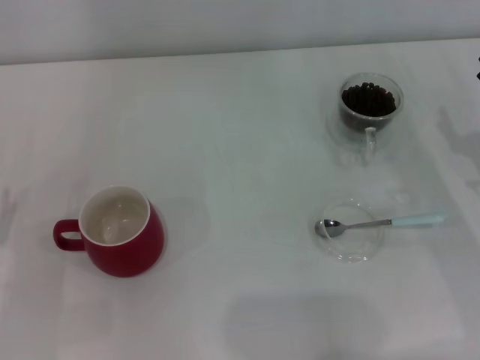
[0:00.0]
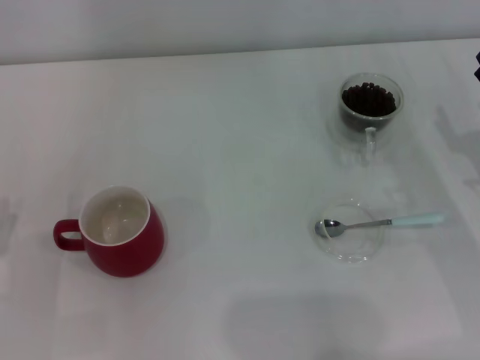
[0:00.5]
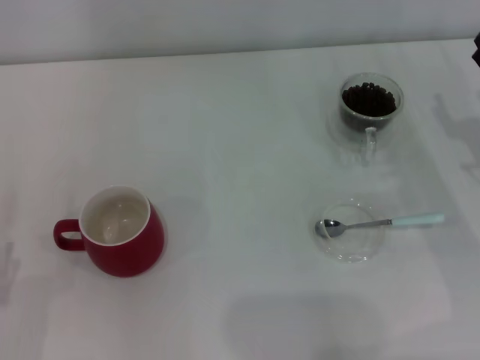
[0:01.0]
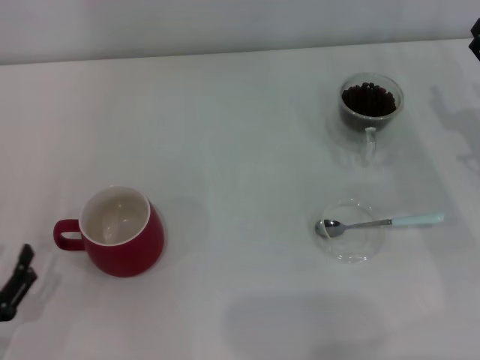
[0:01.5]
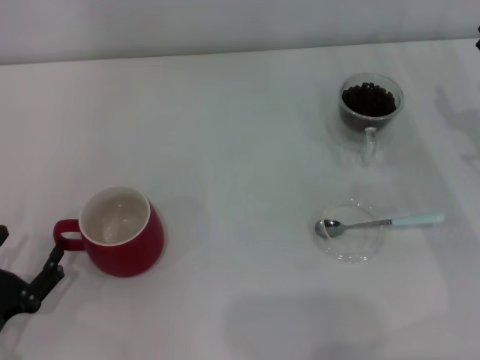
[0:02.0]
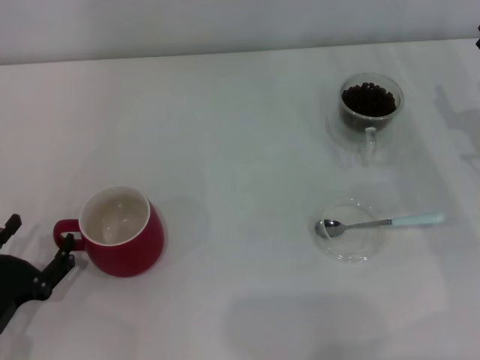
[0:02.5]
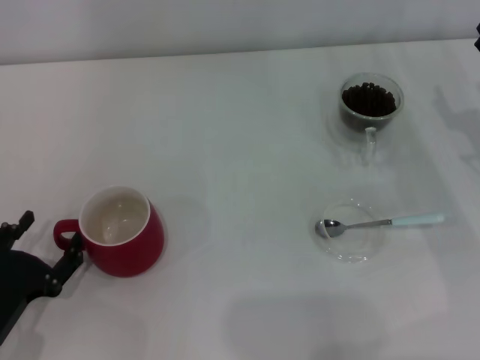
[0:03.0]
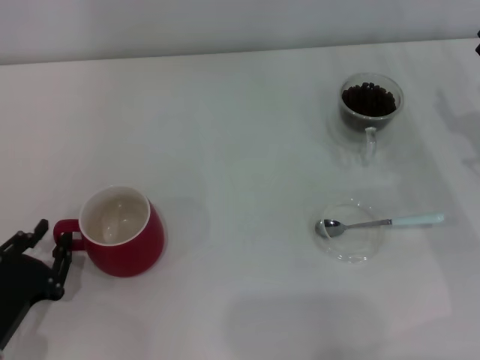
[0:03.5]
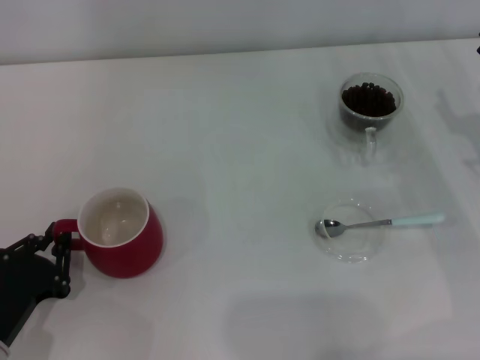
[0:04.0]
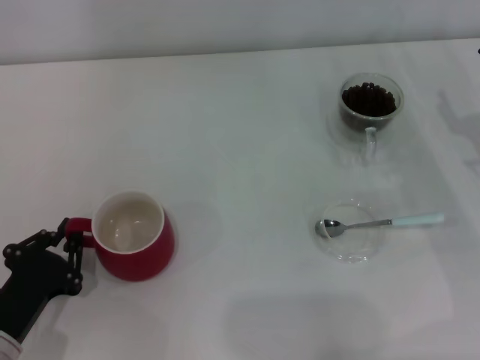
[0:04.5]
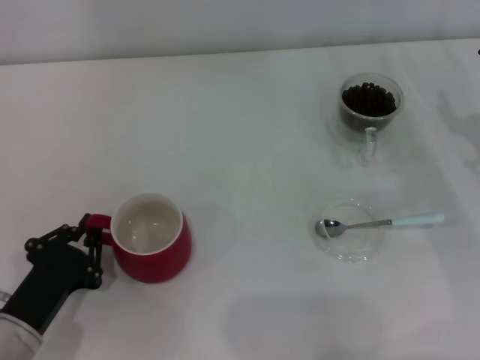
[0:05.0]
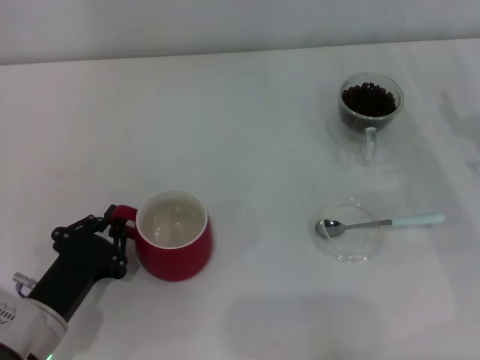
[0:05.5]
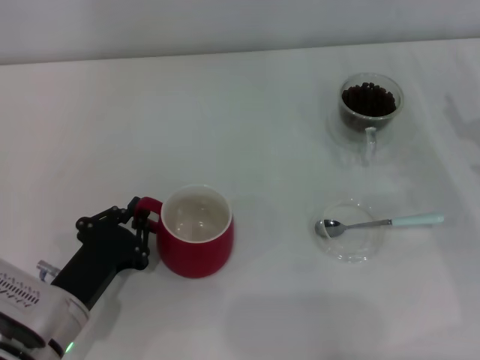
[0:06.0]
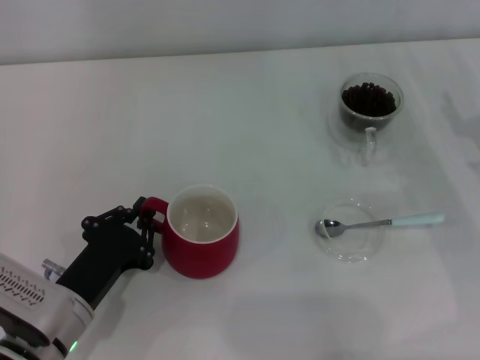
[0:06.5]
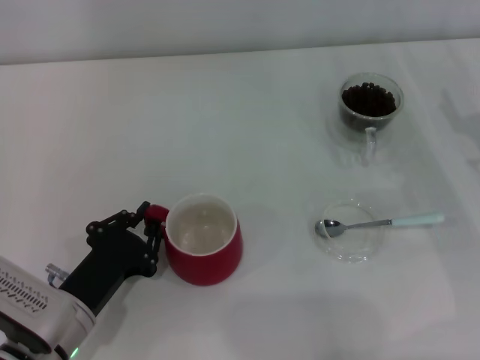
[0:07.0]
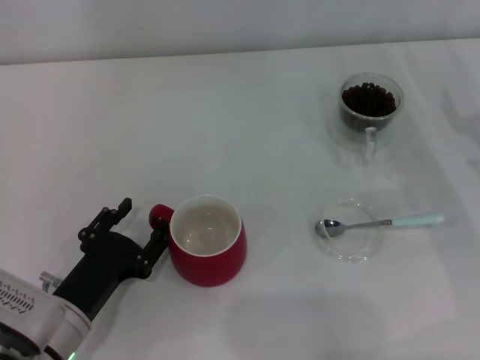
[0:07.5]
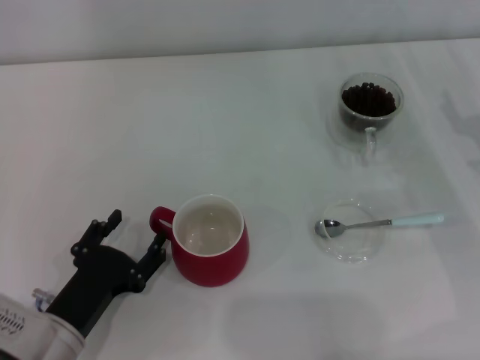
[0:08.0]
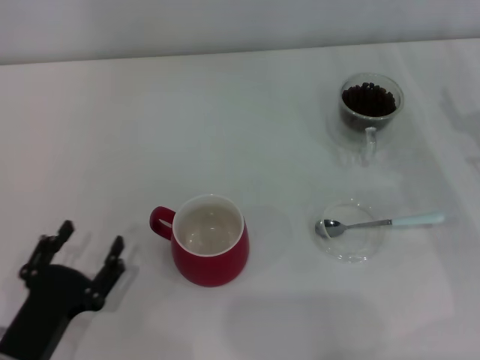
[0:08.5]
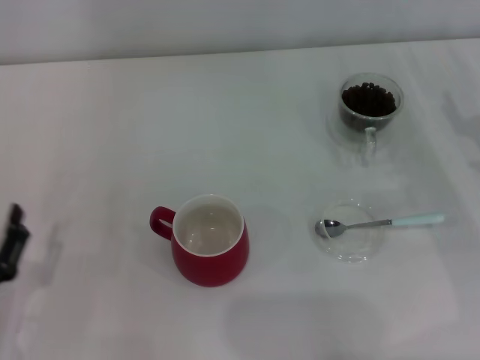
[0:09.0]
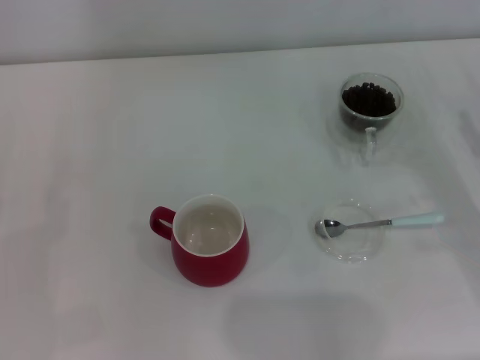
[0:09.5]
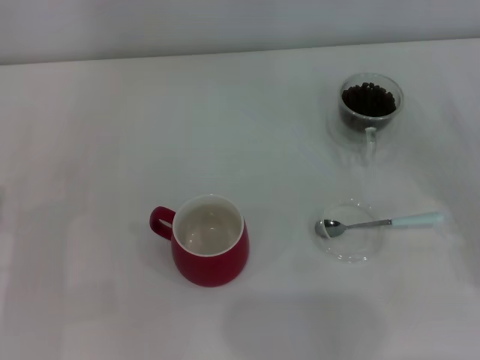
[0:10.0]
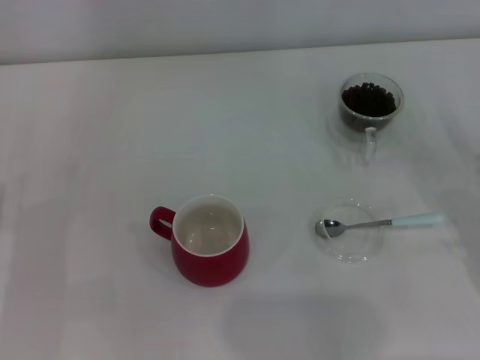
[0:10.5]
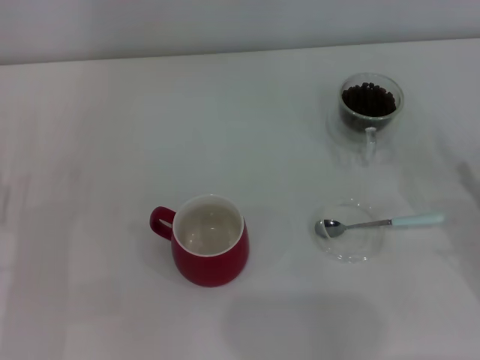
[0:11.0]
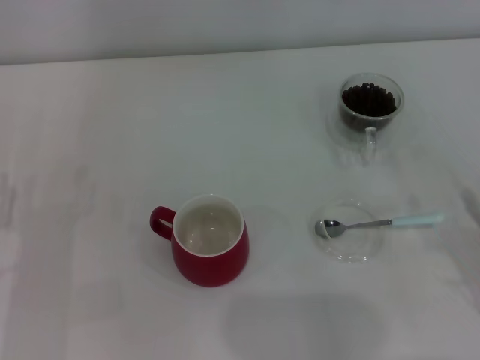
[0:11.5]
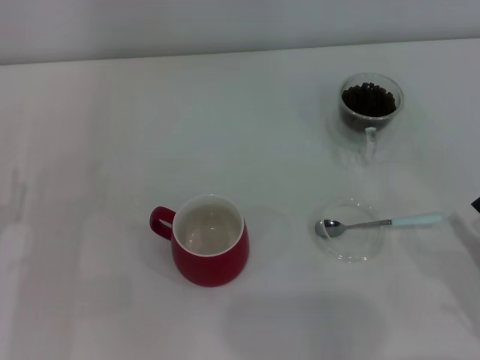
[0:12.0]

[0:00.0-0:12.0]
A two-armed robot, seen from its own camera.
Task of the whole recording: Use a blue spoon to take out the coffee beans from the glass and pour them into the red cup.
Step, 0:00.0 to 0:08.0: Move the cup to the center of view with the left gripper.
0:00.0 to 0:02.0: The left gripper ends up about 5 cm from where it was.
0:02.0 to 0:04.0: The left gripper closes.
0:04.0 to 0:06.0: The left gripper is displaced to the right by some 5 cm.
0:06.0 to 0:08.0: The left gripper opens up.
0:08.0 to 0:10.0: The left gripper goes some 10 cm to the left.

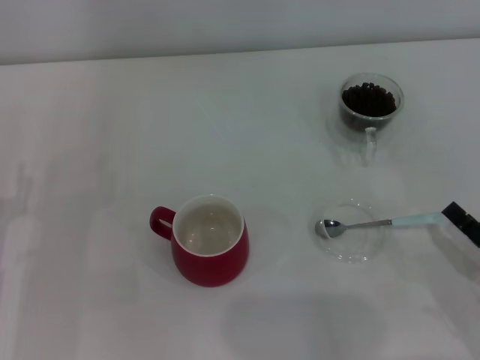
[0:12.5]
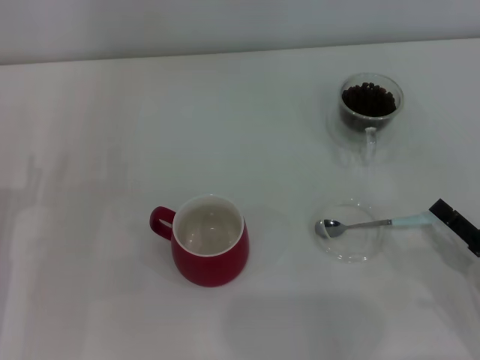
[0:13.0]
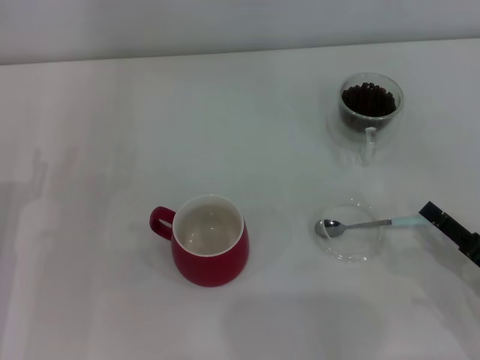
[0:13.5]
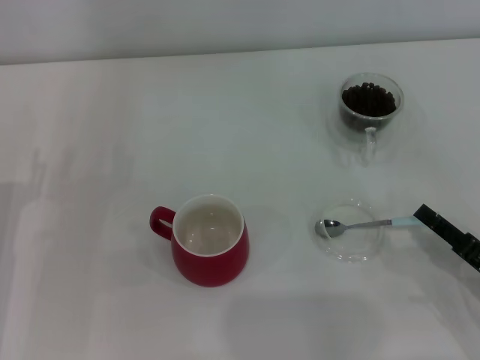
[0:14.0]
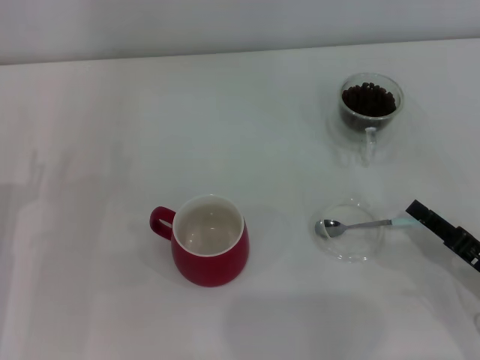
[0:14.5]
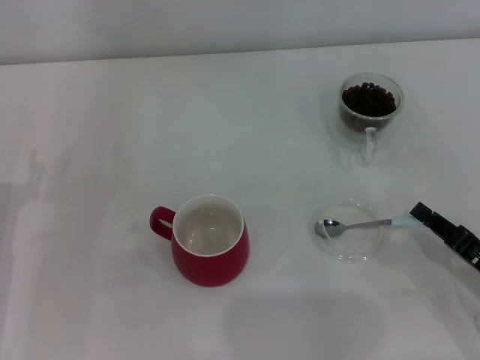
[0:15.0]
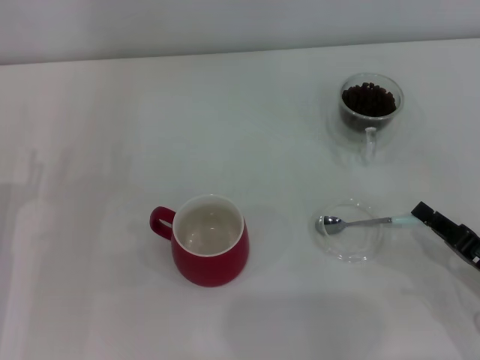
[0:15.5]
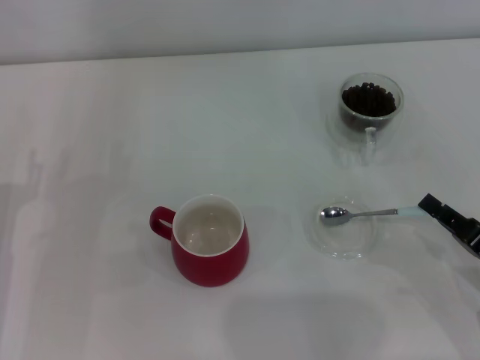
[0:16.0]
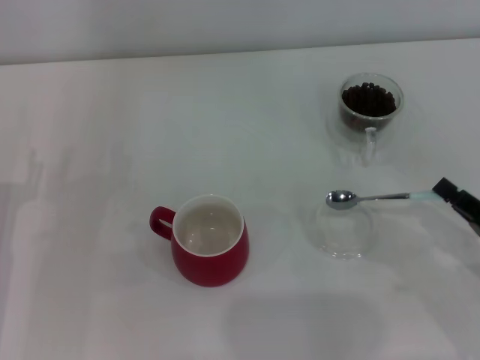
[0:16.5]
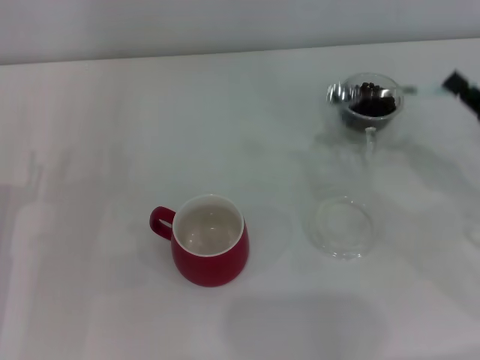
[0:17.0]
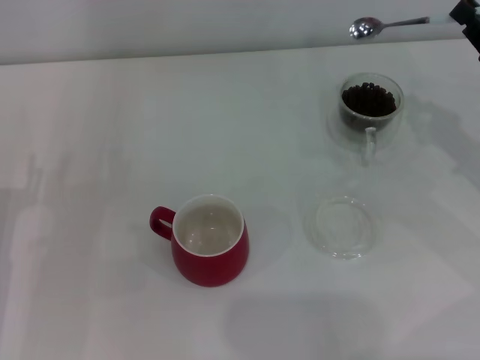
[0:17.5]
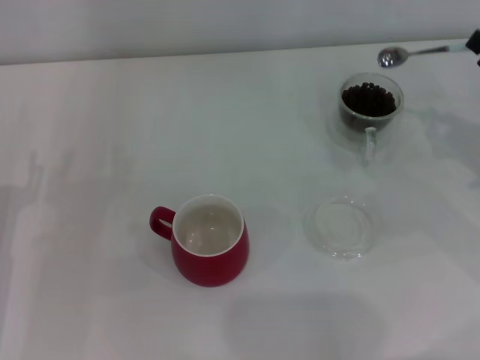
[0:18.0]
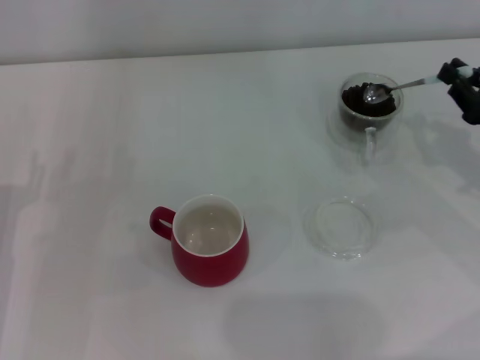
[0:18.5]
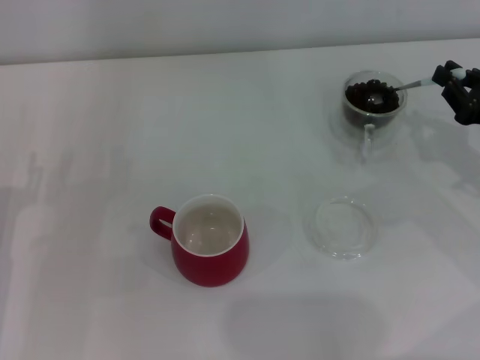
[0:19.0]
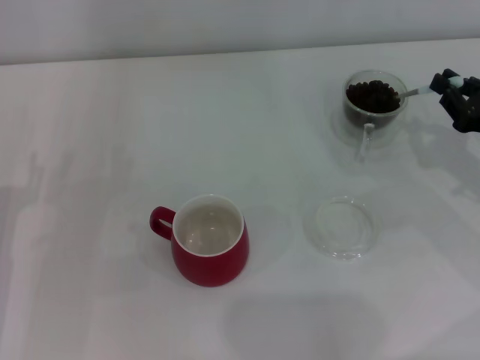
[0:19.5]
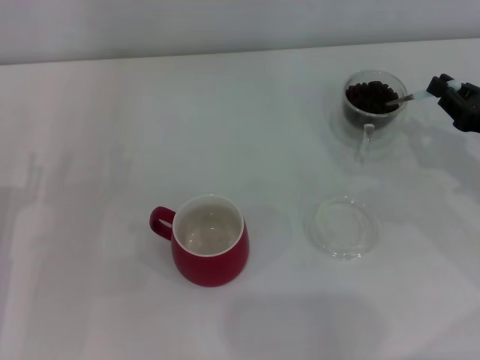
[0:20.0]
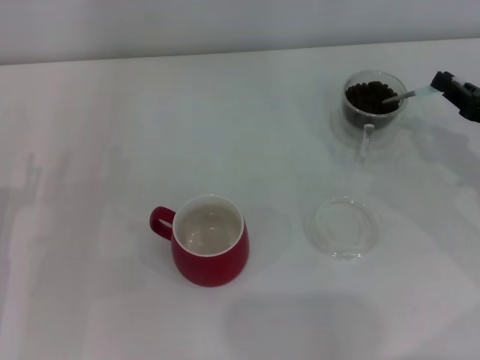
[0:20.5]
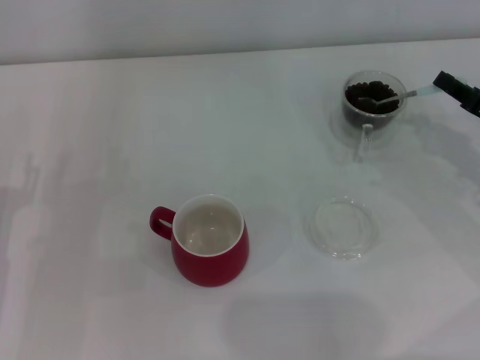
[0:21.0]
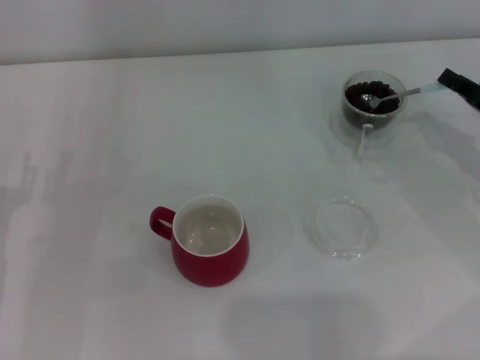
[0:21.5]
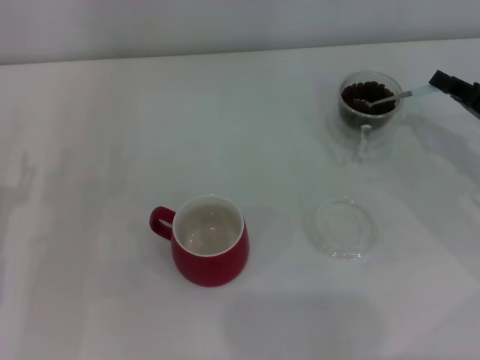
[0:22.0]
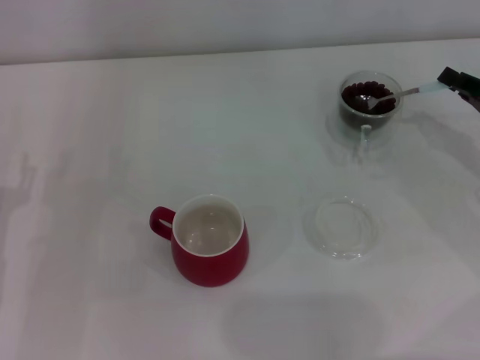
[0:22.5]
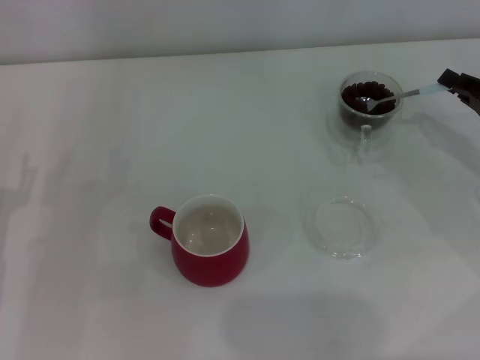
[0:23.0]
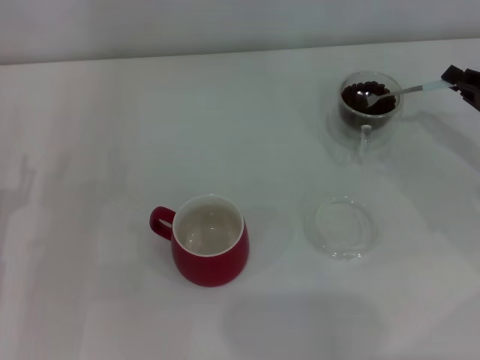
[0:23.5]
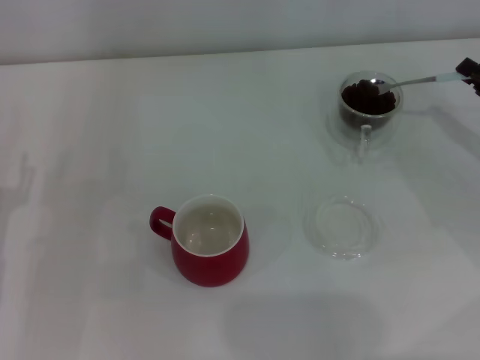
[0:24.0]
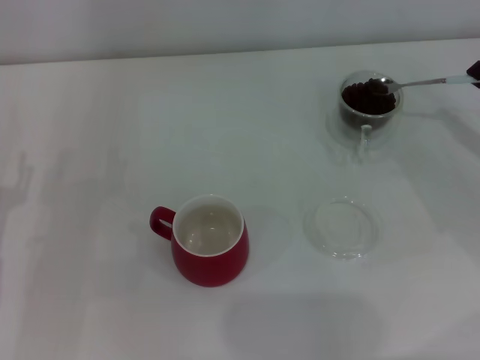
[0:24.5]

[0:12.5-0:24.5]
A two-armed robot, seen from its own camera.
Task of the whole recording: Use a blue spoon to take out the coffee beans from the glass and pour them into the red cup.
Step, 0:12.5 to 0:16.5: Pick up the spoon with the right gripper.
0:12.5 to 0:14.5: The right gripper closes.
0:14.5 to 0:16.5: The right gripper closes.
0:16.5 to 0:18.5: The right gripper moves forward and upward, about 15 cm.
0:20.5 to 0:22.5: There are only small adjustments of the grippers.
0:22.5 to 0:24.5: There are only small adjustments of the grippers.

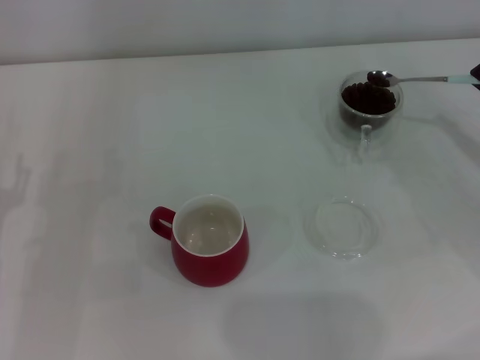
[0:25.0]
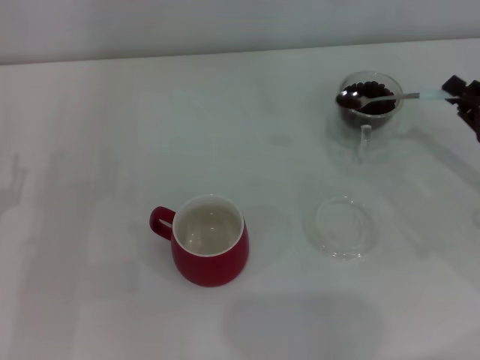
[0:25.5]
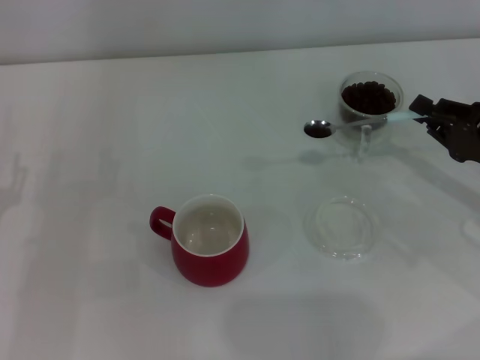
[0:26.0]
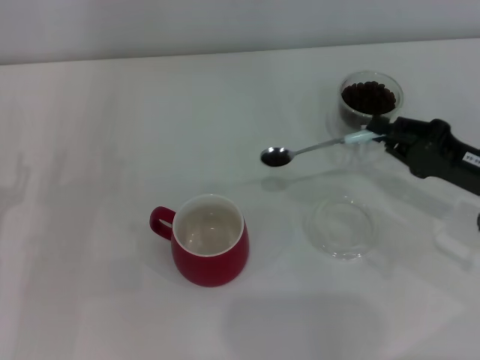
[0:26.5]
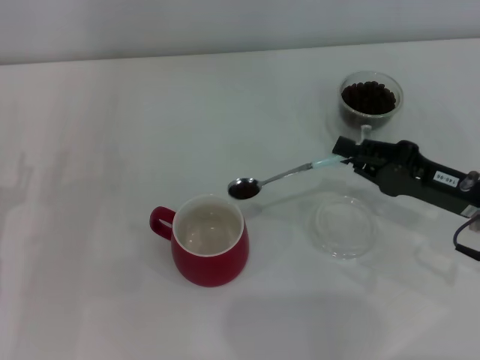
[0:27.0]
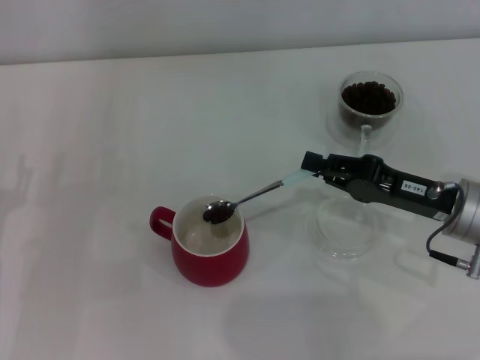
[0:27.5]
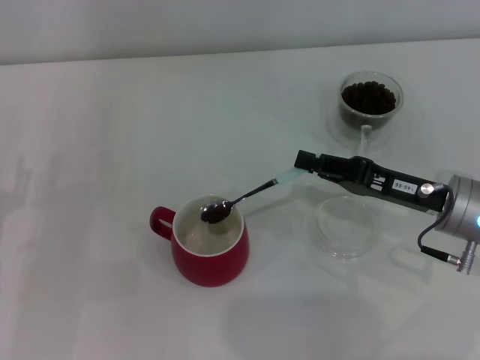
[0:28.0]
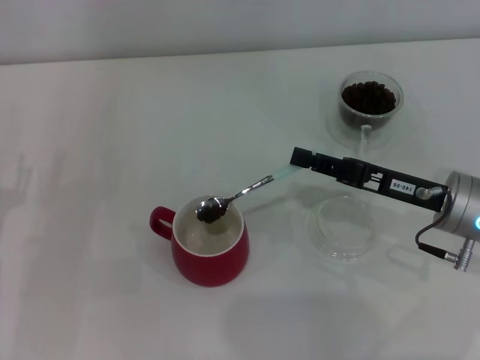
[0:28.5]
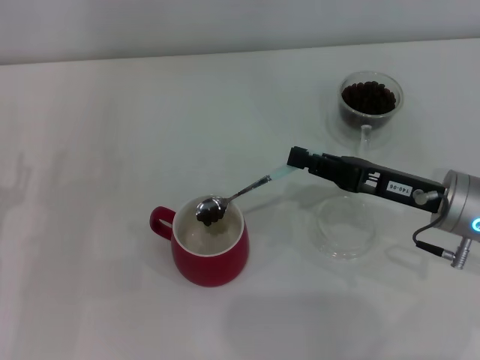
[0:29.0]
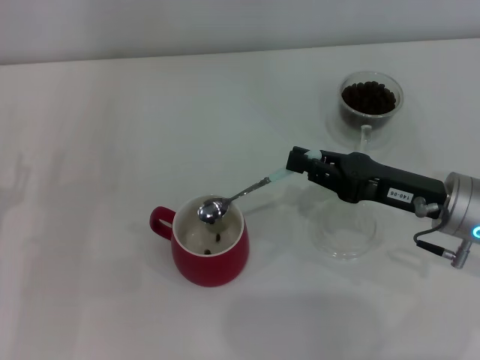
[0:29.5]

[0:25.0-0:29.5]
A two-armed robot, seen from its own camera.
Task of the whole recording: Use a blue spoon to take out the coffee beans from the glass and pour them into the red cup.
0:25.0 to 0:27.0: The right gripper goes roughly 10 cm to the left.
